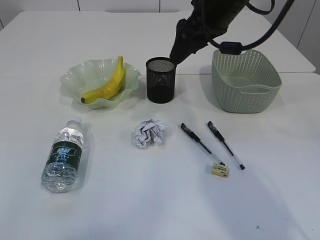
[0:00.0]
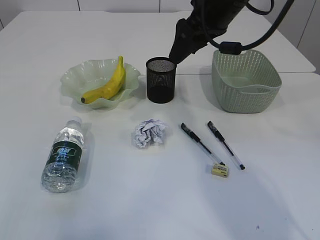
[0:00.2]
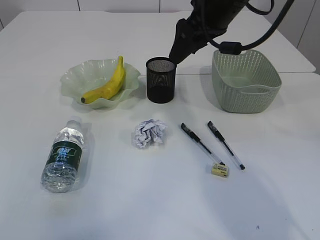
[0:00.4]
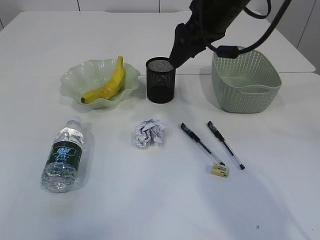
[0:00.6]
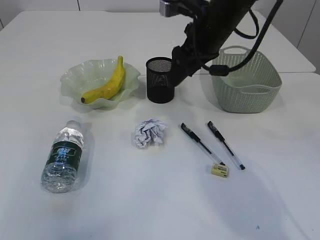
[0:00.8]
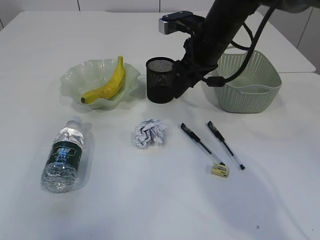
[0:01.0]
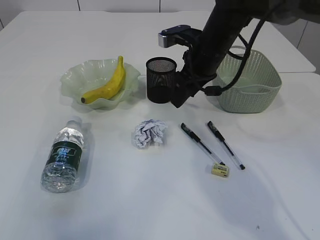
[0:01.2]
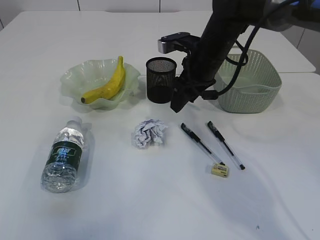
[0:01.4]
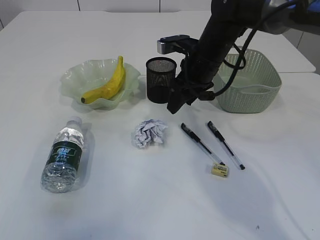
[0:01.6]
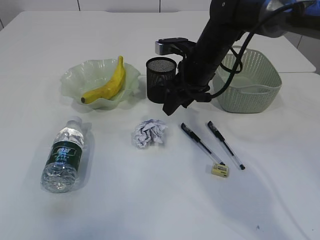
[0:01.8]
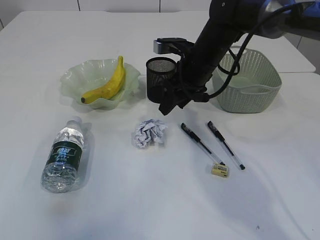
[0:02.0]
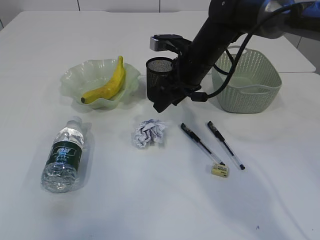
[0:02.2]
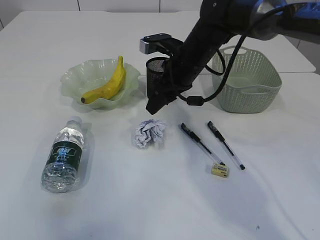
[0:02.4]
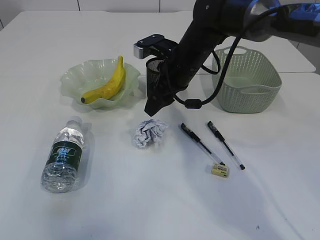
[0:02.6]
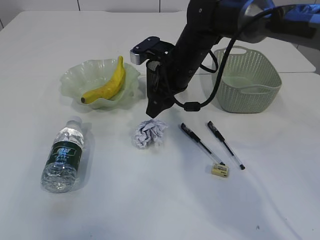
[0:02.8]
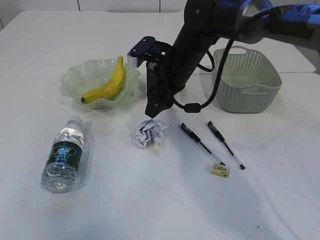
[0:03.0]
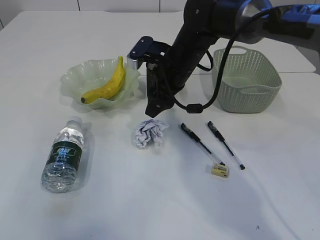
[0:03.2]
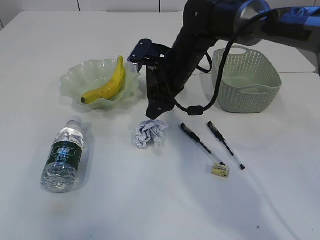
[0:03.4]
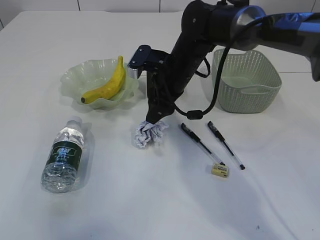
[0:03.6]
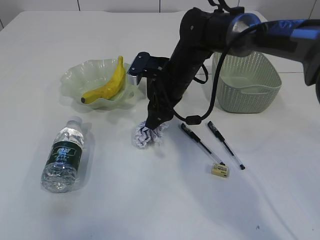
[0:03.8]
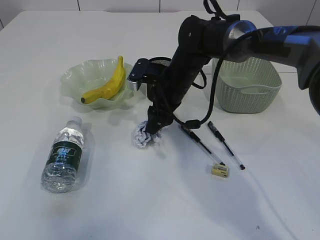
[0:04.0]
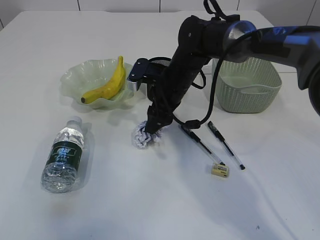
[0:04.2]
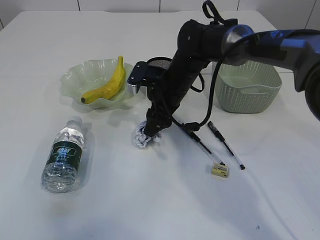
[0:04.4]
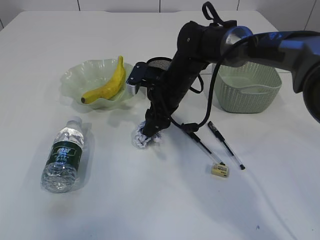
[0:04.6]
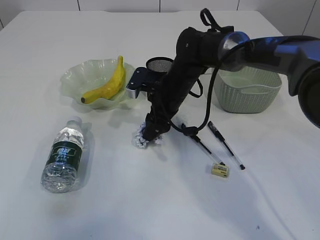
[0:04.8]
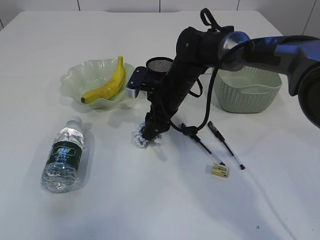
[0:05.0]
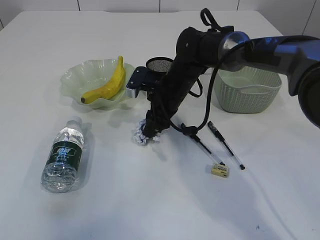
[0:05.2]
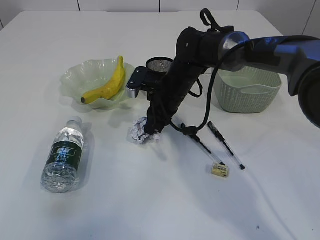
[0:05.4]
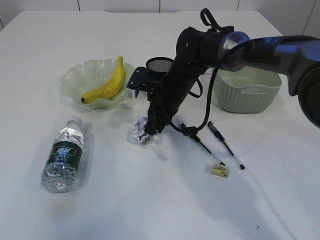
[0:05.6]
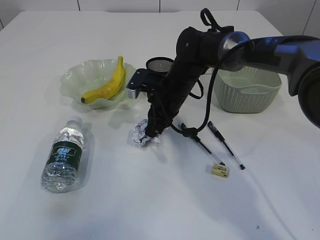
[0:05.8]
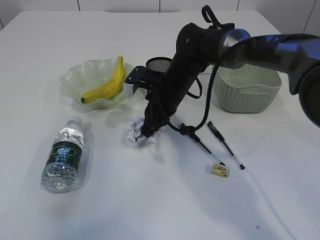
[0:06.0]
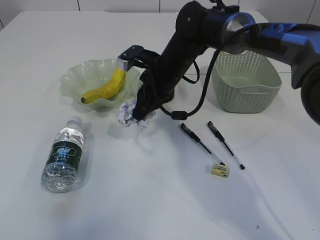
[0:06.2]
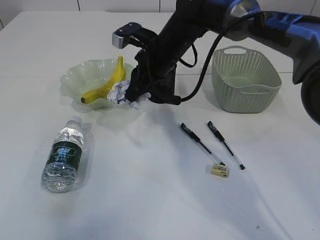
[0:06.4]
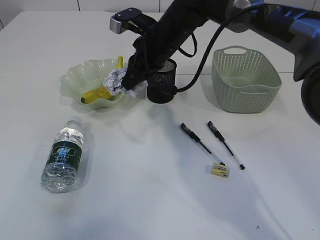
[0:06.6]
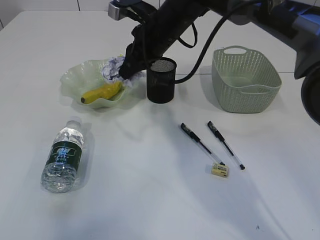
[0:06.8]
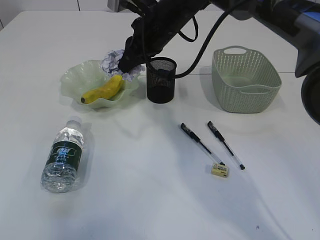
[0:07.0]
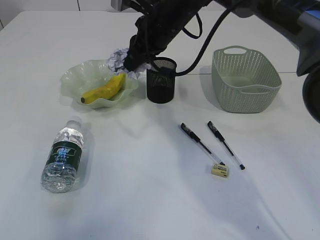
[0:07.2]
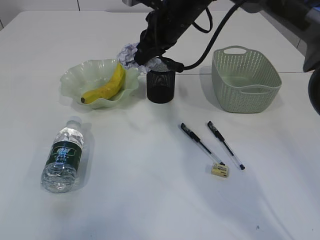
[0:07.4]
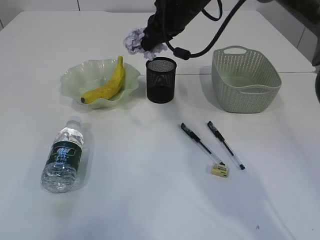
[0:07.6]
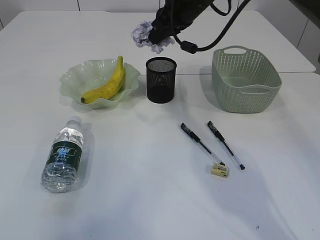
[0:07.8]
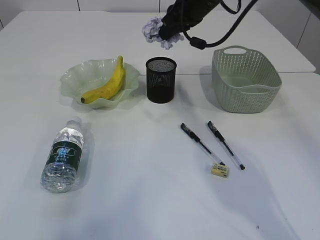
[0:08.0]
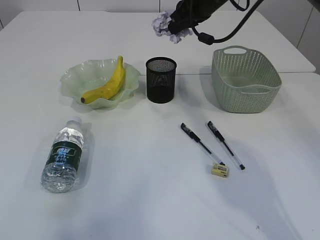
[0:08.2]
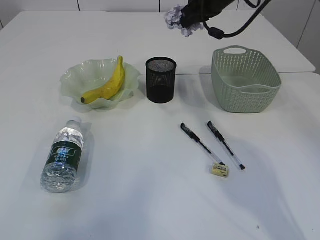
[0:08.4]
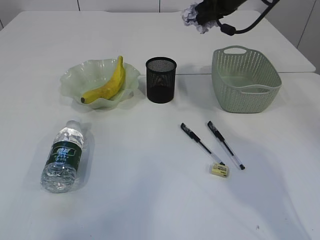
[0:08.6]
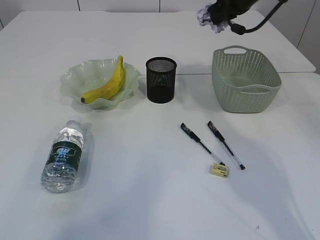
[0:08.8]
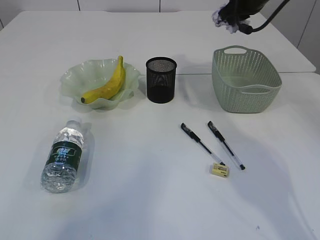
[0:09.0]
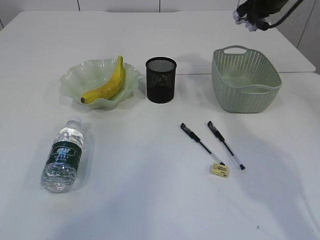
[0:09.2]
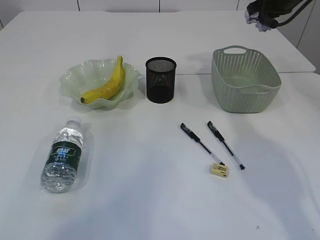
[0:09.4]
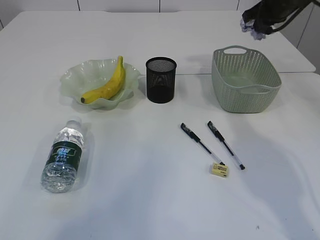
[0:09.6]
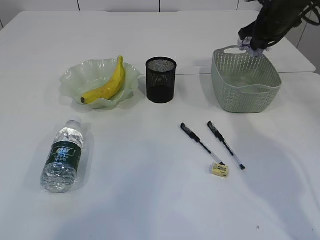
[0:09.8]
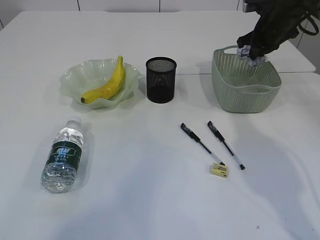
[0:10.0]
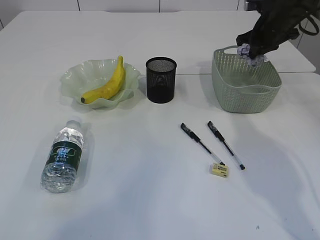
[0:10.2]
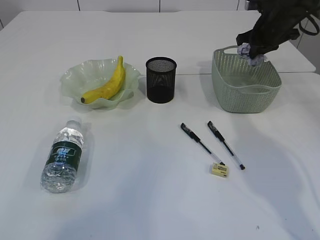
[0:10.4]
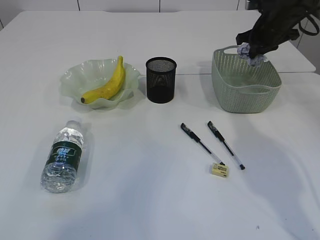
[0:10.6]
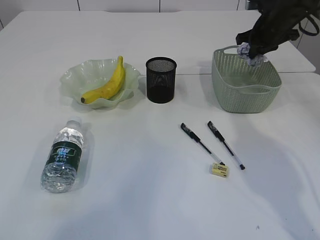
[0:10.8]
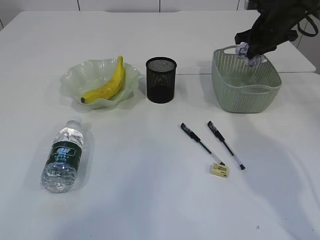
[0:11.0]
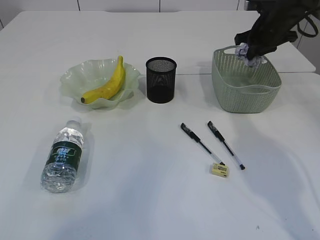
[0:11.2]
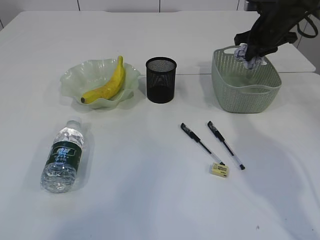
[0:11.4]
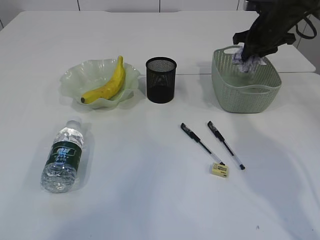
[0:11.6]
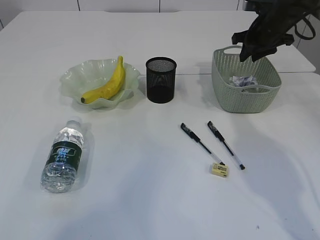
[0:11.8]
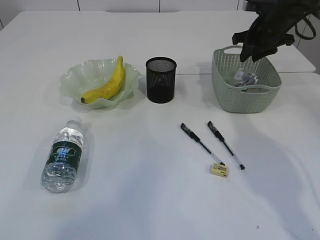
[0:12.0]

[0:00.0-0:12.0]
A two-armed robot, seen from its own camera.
Step, 0:00.0 to 0:06.6: Pick up the waste paper.
0:00.0 to 0:01.6: The right gripper heads downward, covering approximately 10 cm. Meanwhile the left gripper changes place by roughly 5 cm.
0:01.6 to 0:03.0: The right gripper moves some 5 cm.
0:03.0 to 0:04.4: The right gripper moves downward, about 5 cm.
0:04.4 to 0:06.0: The right gripper closes up.
0:06.0 to 0:07.6: The right gripper is displaced upward by approximately 15 cm.
0:07.6 to 0:09.0: The right gripper shifts some 15 cm to the right.
0:09.0 to 0:10.4: The right gripper shifts roughly 10 cm downward and to the right.
0:10.4 to 0:12.0: The right gripper opens its fingers.

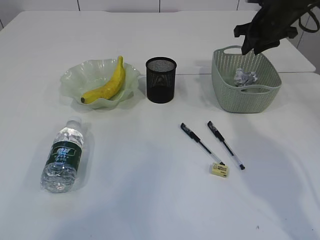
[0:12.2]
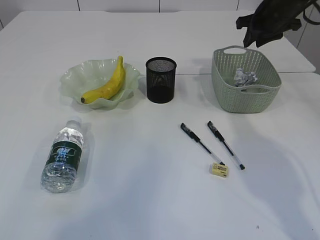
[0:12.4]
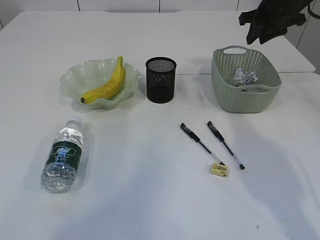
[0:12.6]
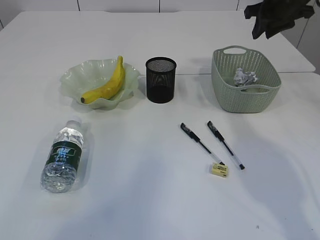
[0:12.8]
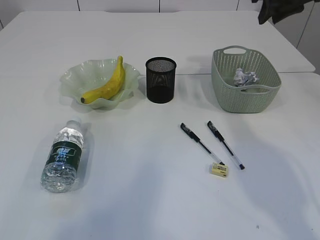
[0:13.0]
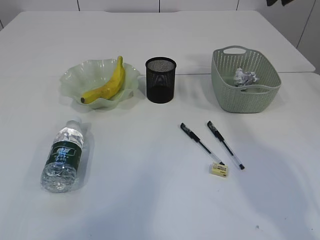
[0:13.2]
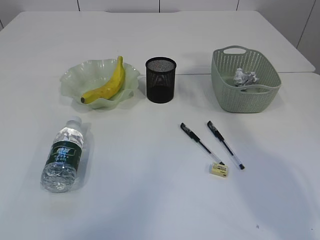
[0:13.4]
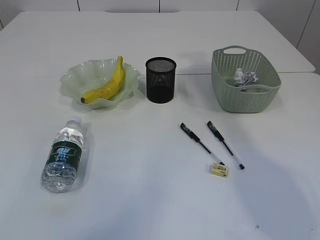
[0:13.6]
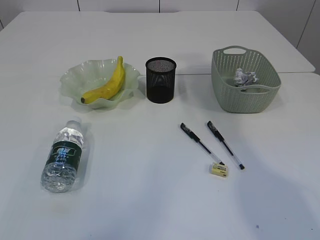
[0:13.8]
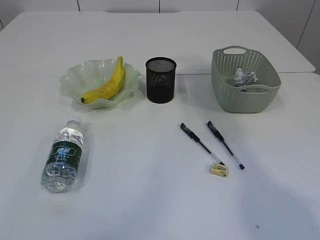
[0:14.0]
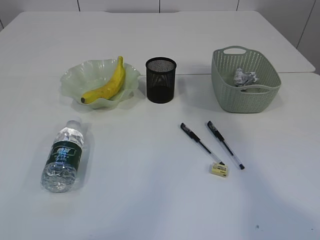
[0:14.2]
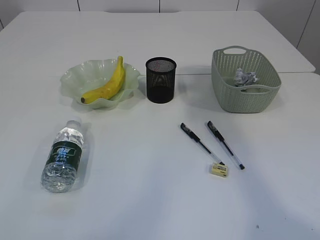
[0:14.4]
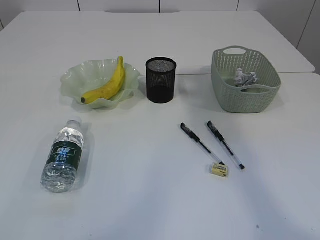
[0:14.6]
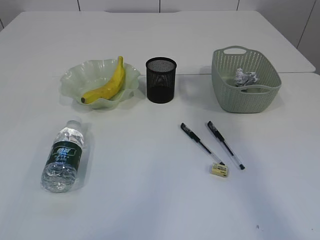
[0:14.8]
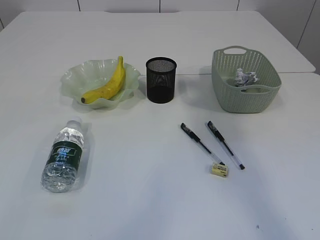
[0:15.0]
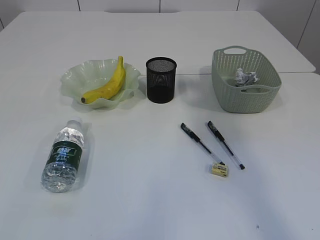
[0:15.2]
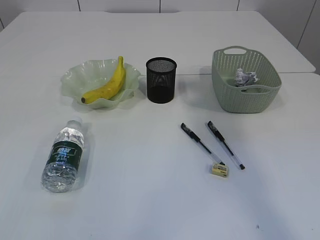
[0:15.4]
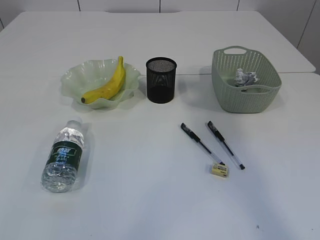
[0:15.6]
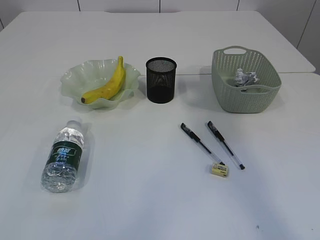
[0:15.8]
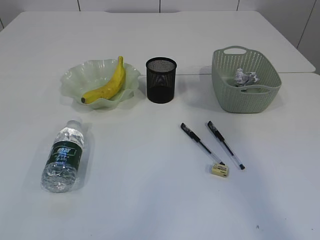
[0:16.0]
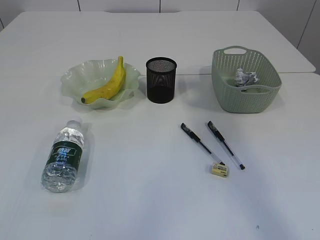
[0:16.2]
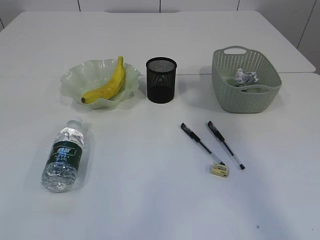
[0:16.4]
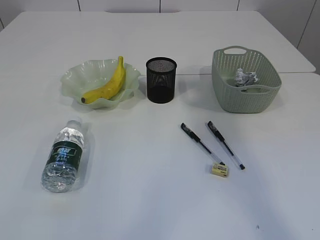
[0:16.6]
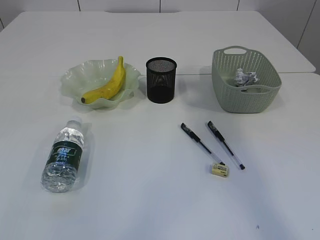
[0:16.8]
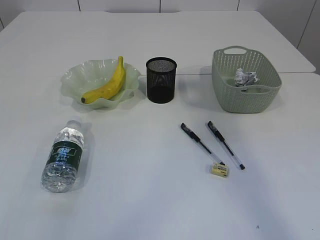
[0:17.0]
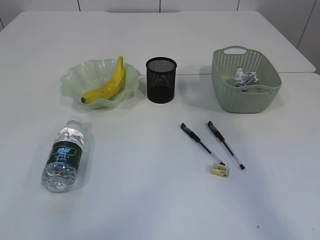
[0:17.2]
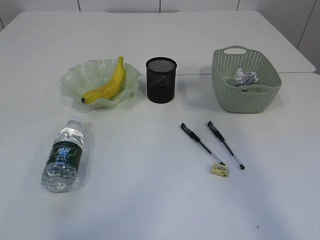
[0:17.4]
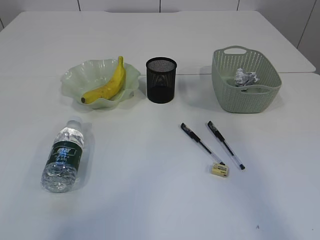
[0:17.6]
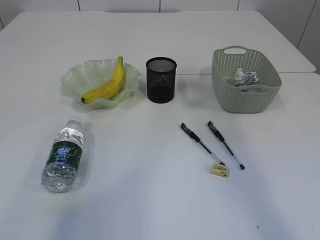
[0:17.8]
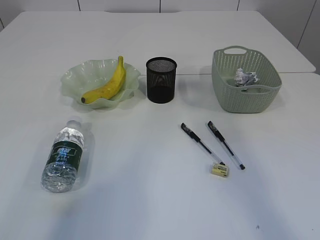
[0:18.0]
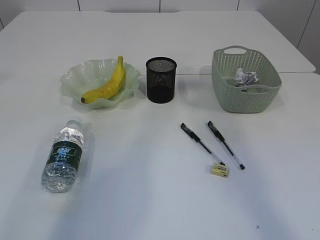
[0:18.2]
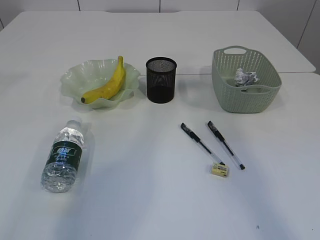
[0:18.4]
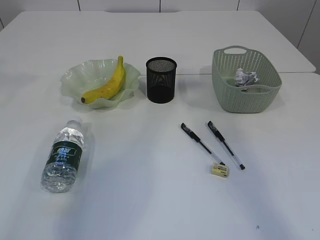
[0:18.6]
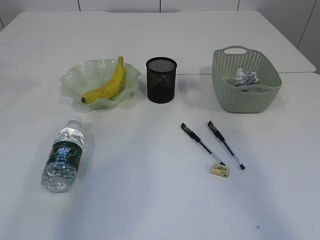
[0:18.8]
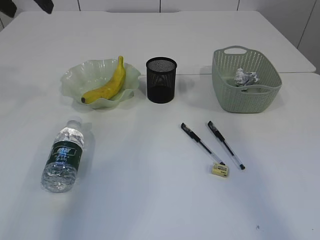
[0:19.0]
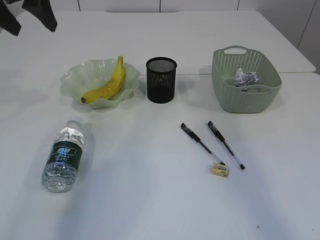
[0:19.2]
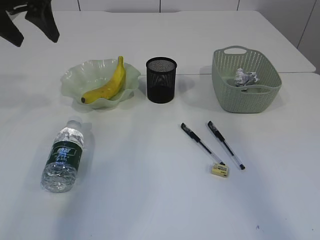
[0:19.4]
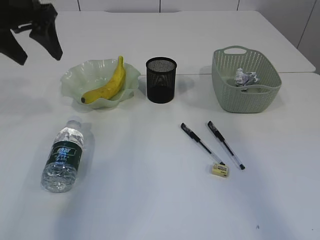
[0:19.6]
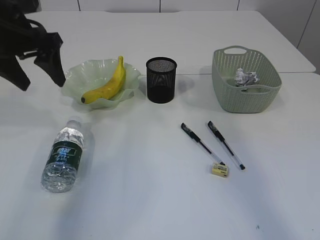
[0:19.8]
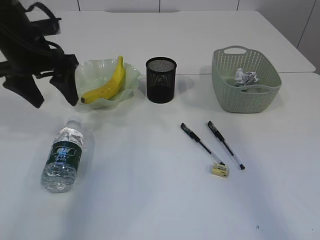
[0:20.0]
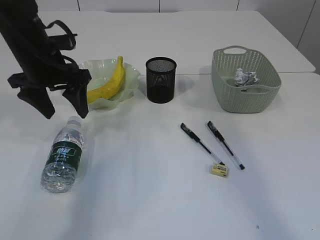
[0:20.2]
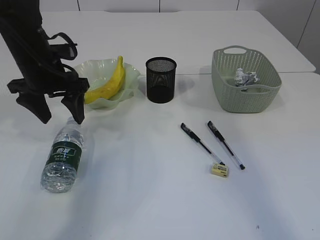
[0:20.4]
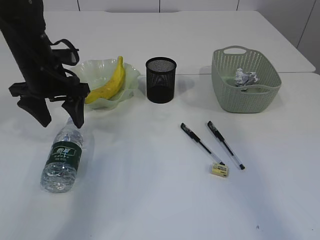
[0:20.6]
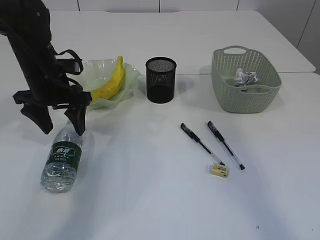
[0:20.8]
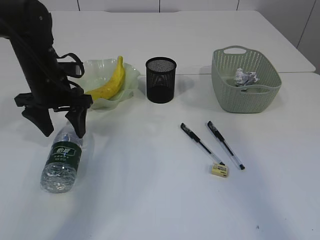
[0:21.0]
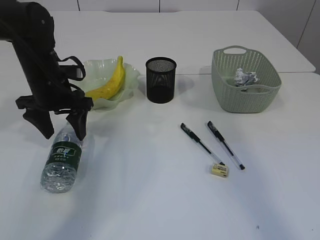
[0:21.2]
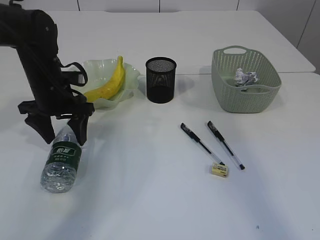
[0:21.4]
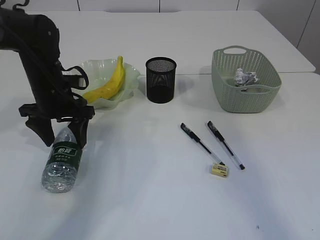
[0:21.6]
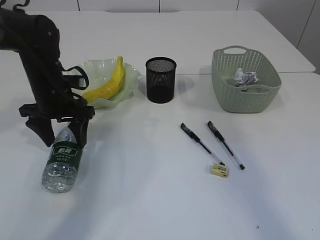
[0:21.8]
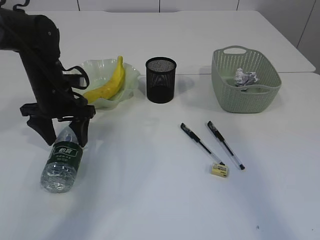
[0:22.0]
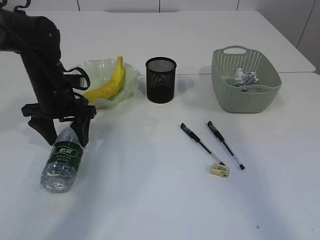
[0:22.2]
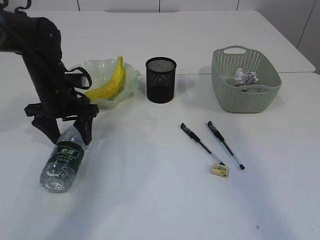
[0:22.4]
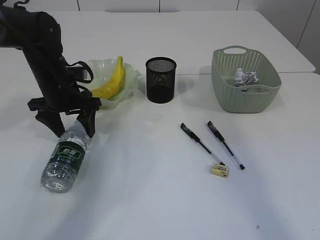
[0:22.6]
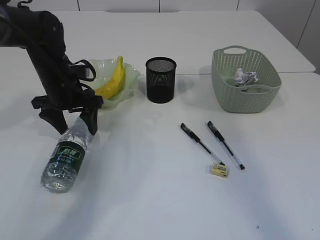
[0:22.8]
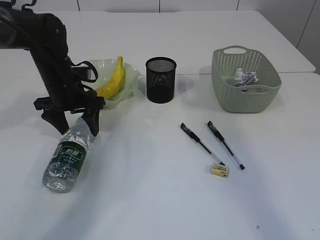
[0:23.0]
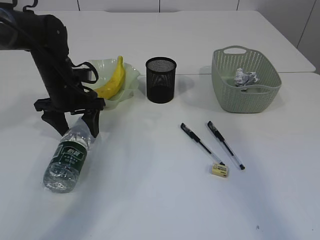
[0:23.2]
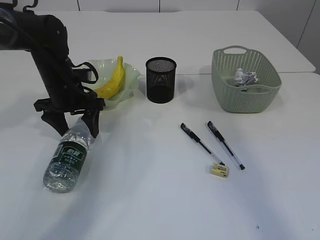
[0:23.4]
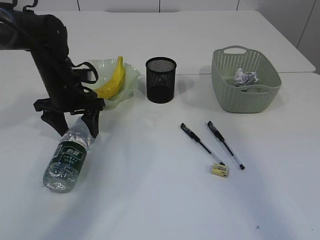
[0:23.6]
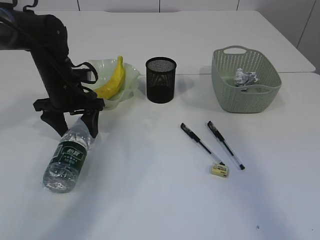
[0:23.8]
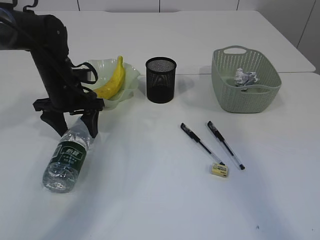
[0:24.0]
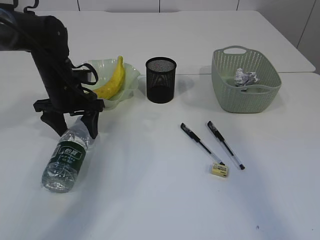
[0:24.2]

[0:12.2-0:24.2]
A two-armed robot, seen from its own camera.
0:12.2 to 0:13.8: The left gripper is displaced backward by roughly 5 cm, while the right gripper travels upward and backward by approximately 30 cm.
0:13.8 to 0:15.2: The right gripper travels backward by about 15 cm.
0:16.6 to 0:18.2: The left gripper shifts roughly 25 cm forward and downward.
0:18.2 to 0:19.8: The left gripper moves downward, roughly 20 cm.
0:19.8 to 0:21.2: The left gripper shifts about 10 cm downward.
0:21.2 to 0:24.2: The grippers stay close to where they were, moving slightly.
